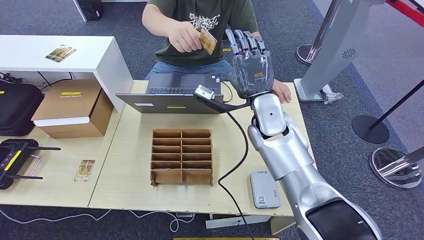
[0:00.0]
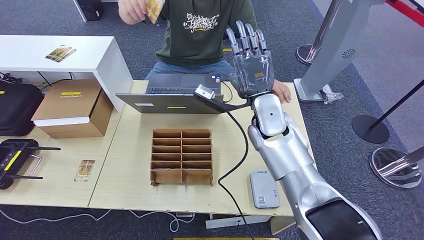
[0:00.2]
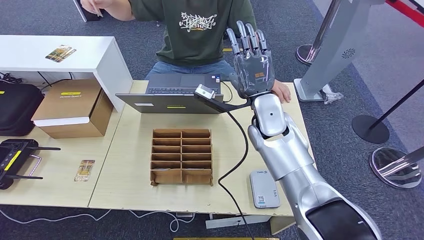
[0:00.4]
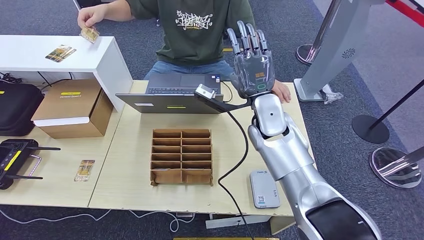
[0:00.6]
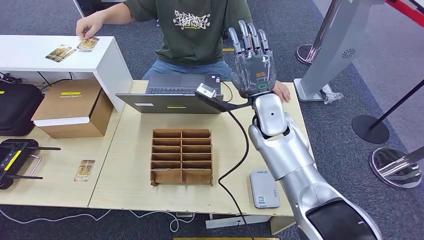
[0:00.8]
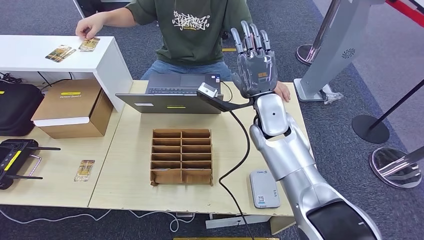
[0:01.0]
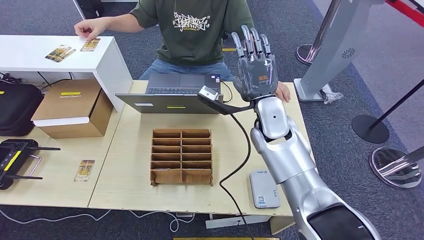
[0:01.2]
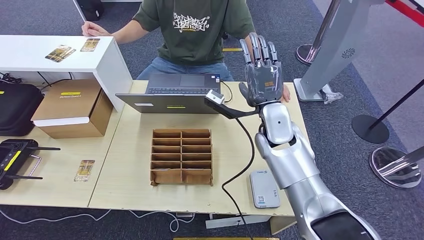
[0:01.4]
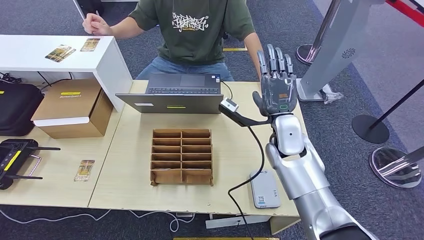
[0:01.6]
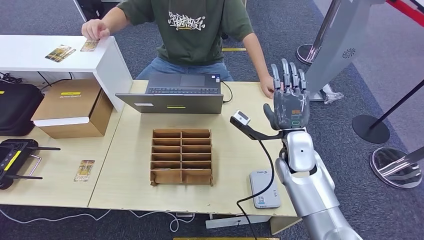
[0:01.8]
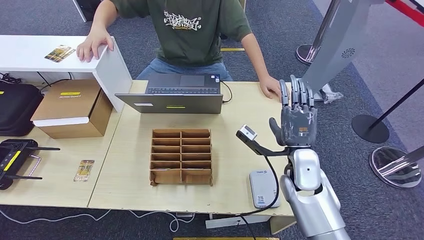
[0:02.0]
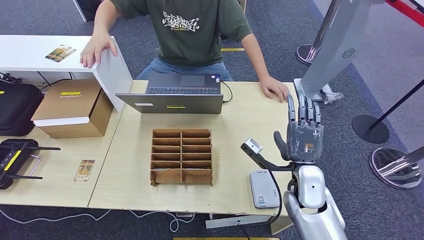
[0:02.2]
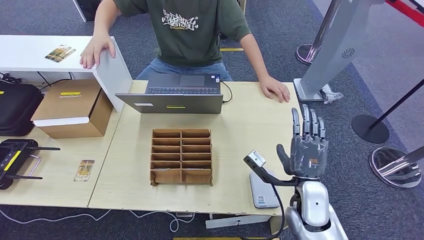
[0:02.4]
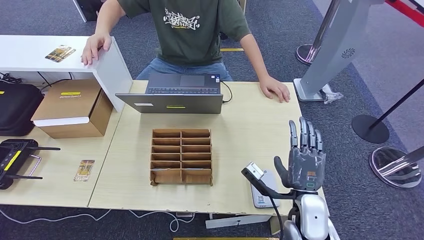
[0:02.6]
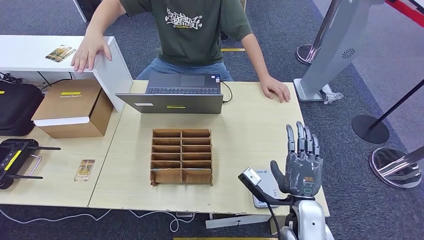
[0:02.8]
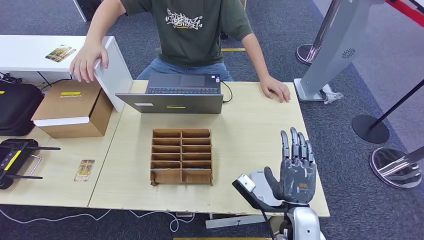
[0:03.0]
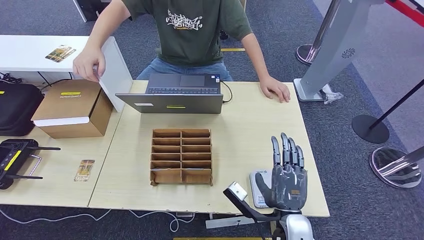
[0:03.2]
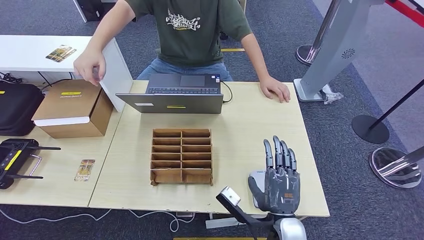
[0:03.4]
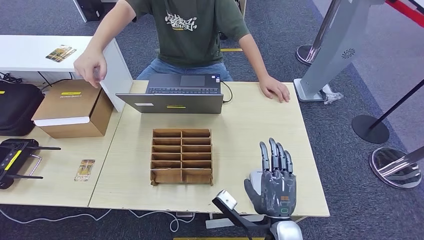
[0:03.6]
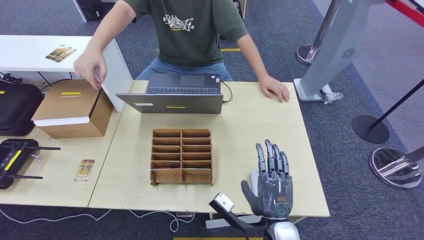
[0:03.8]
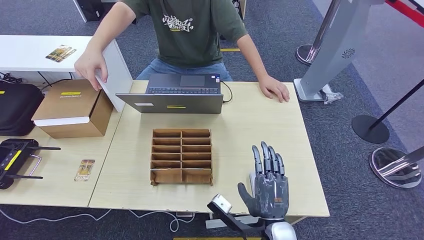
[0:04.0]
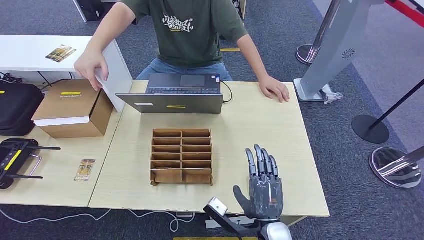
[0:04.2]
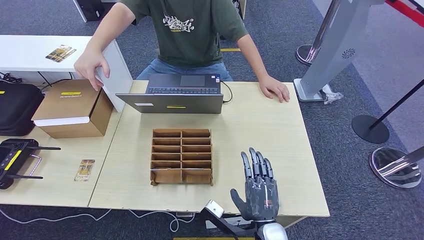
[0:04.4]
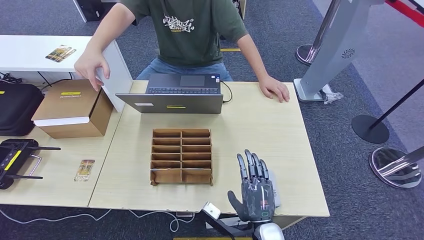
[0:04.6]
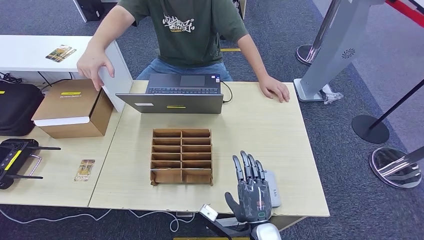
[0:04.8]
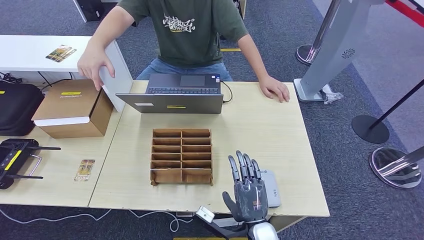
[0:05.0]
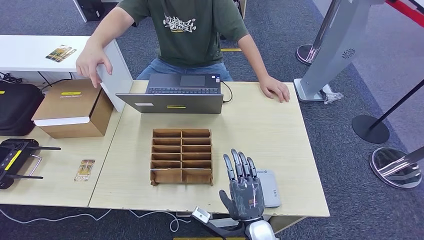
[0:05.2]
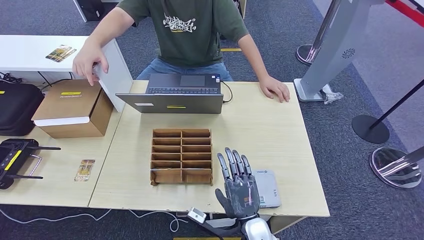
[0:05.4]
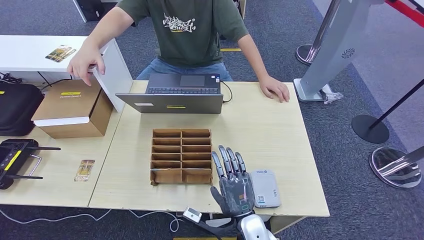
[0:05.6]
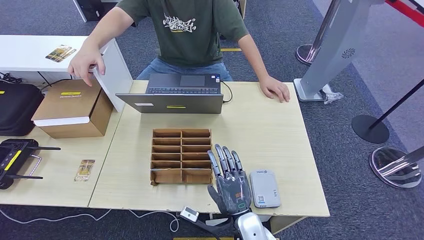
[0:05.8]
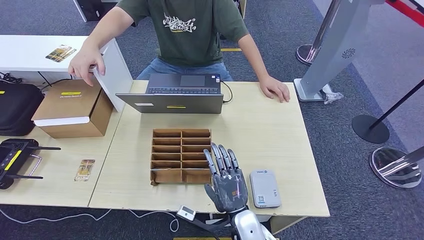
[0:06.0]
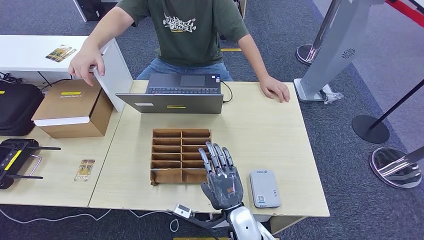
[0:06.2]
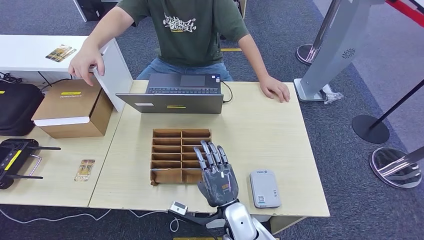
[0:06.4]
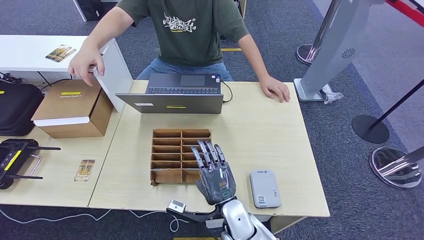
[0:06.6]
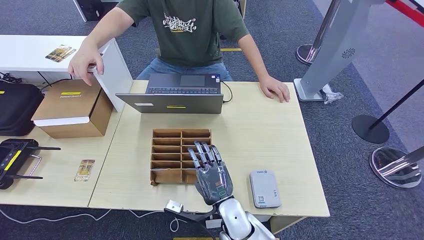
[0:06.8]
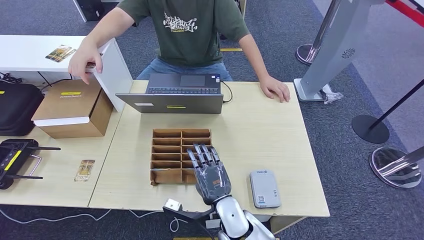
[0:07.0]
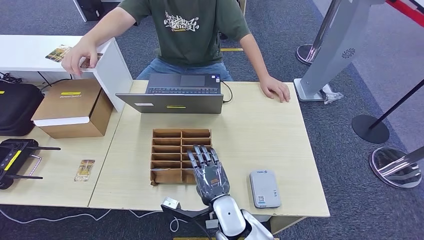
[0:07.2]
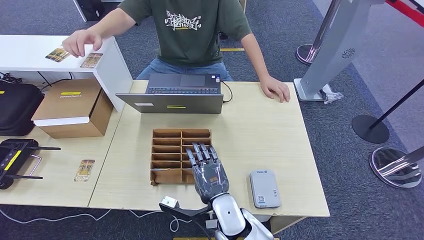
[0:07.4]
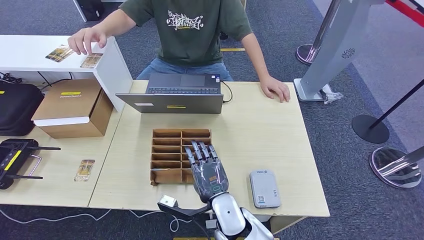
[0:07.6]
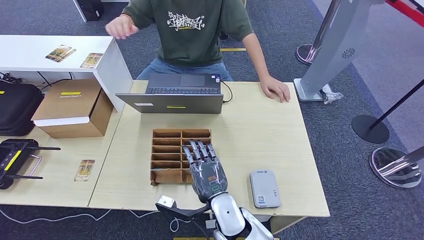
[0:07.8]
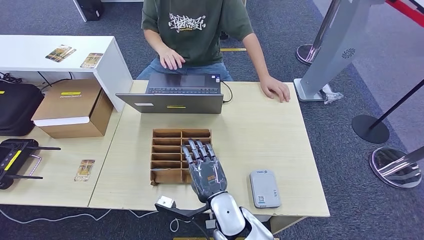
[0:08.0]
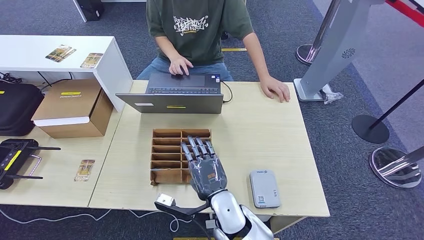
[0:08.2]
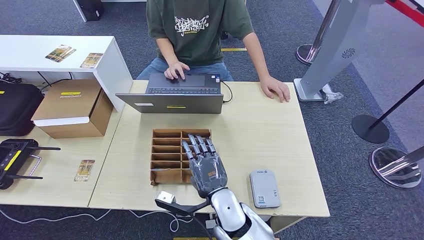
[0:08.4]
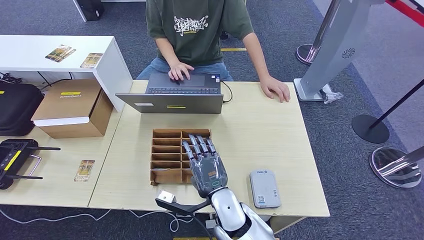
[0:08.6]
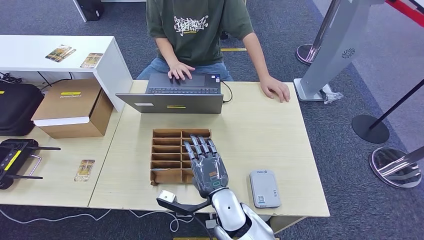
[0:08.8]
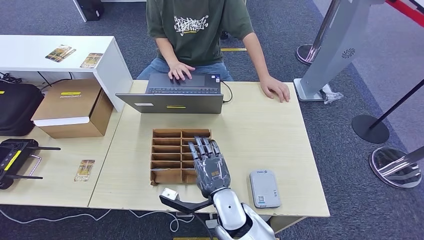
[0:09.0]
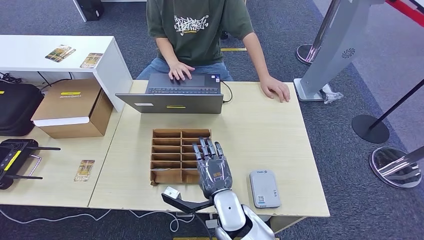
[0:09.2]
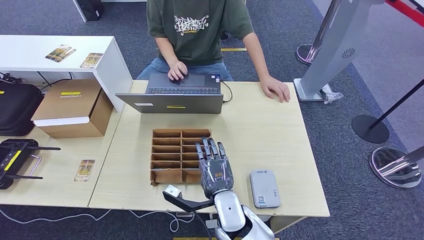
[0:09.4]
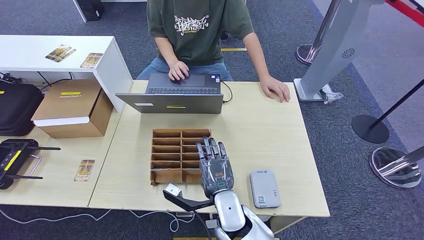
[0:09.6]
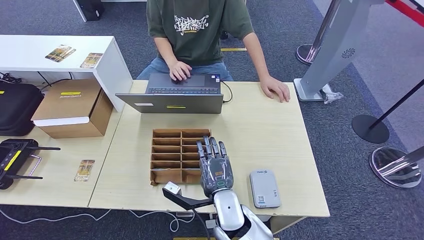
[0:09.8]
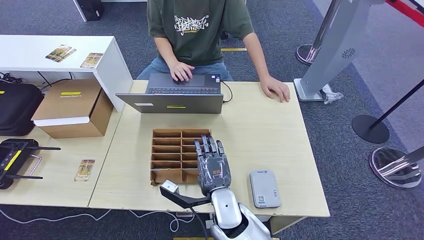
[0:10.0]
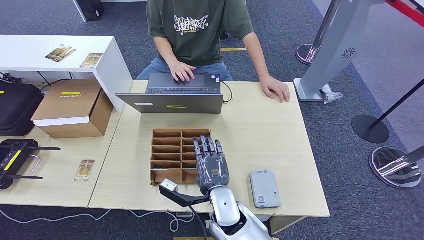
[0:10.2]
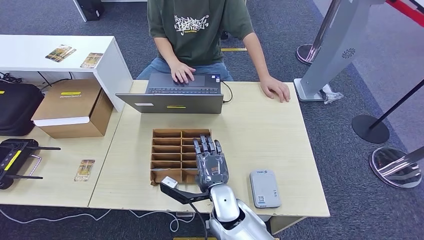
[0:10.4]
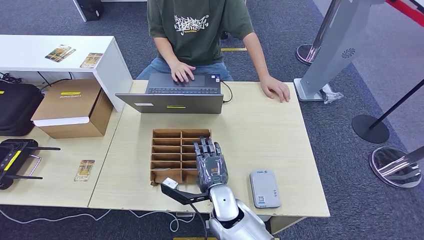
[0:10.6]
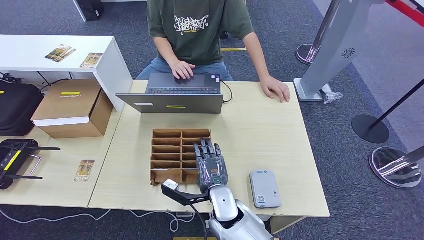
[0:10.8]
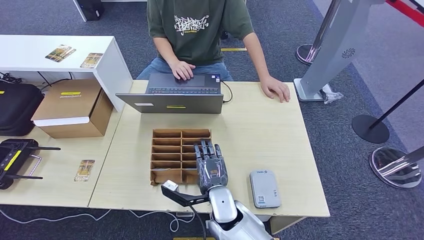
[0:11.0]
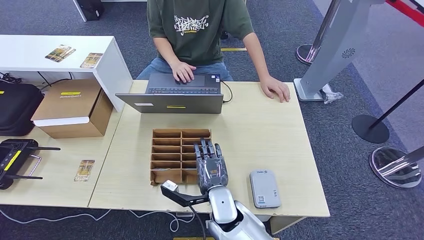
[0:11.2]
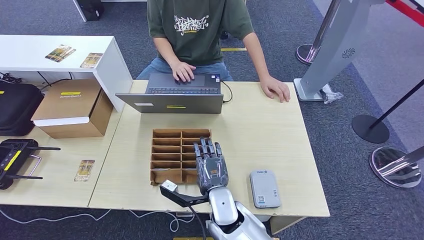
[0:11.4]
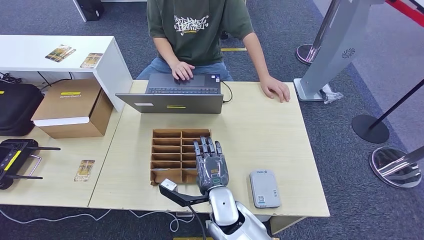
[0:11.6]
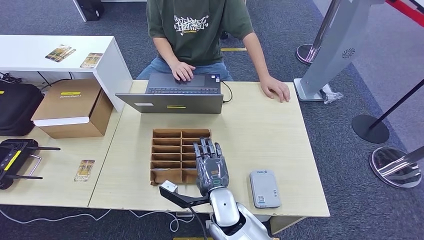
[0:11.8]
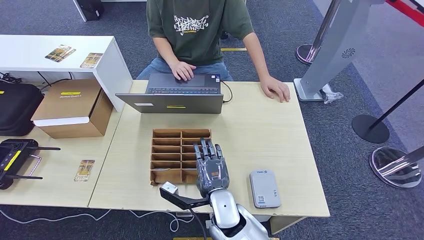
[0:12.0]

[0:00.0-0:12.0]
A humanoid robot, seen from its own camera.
0:00.0 to 0:01.6: The right hand changes place by approximately 5 cm.
0:01.6 to 0:03.0: The right hand moves backward and downward, about 20 cm.
0:03.0 to 0:04.4: The right hand heads to the left, covering about 5 cm.
0:04.4 to 0:06.0: The right hand moves about 5 cm.
0:06.0 to 0:07.6: The right hand shifts by approximately 5 cm.
0:07.6 to 0:12.0: There are only small adjustments of the hands.

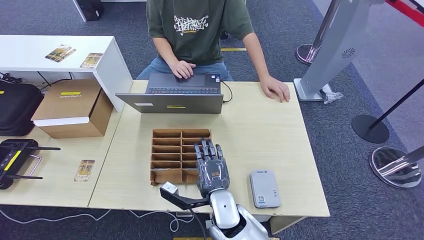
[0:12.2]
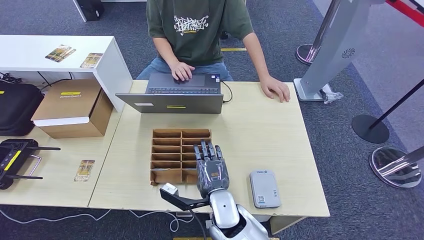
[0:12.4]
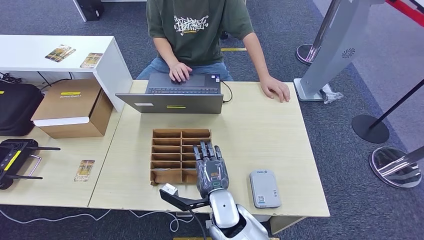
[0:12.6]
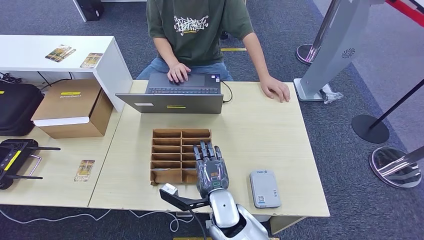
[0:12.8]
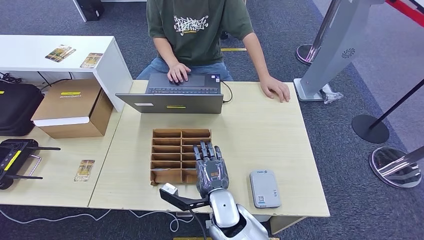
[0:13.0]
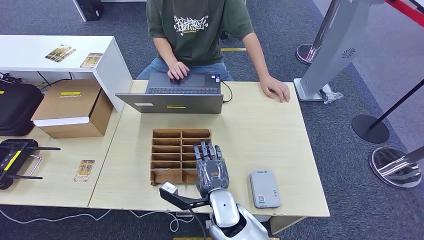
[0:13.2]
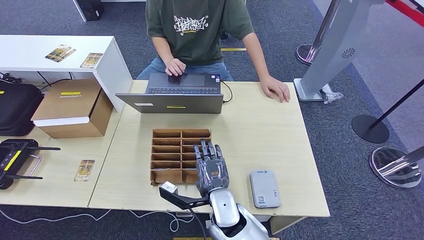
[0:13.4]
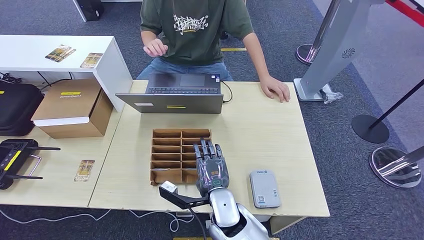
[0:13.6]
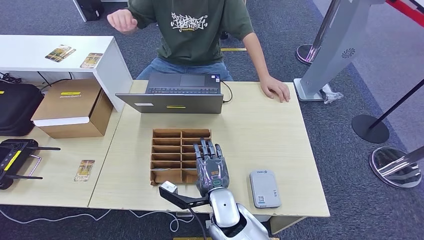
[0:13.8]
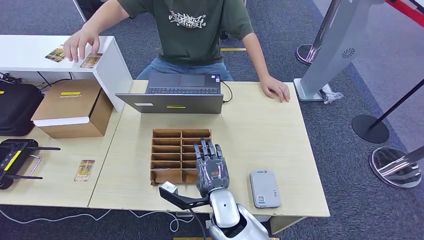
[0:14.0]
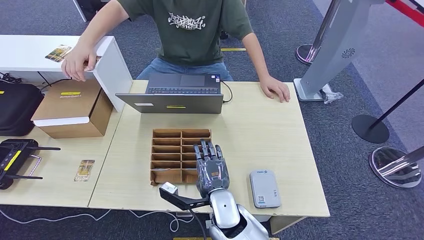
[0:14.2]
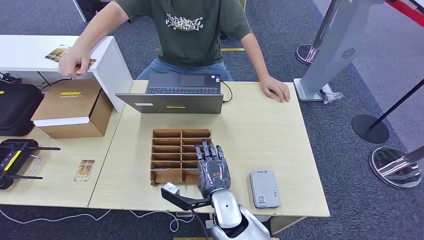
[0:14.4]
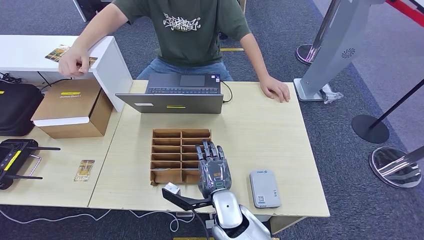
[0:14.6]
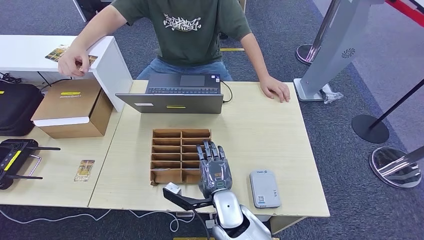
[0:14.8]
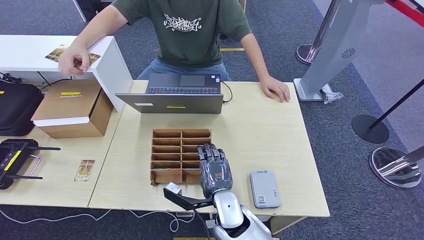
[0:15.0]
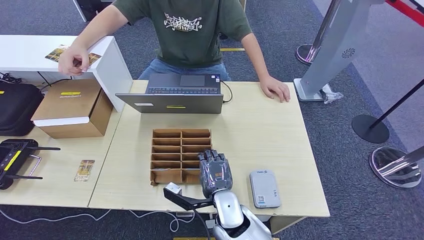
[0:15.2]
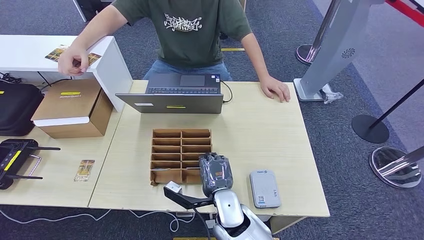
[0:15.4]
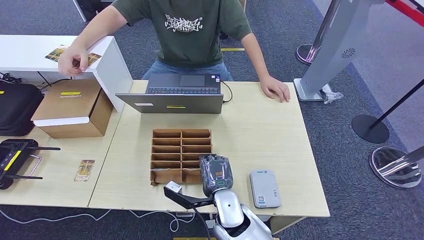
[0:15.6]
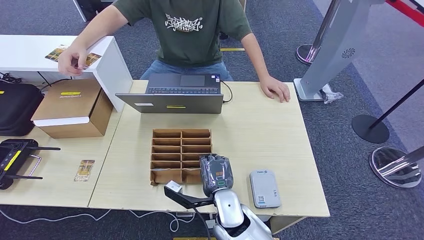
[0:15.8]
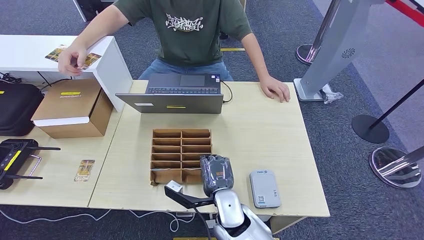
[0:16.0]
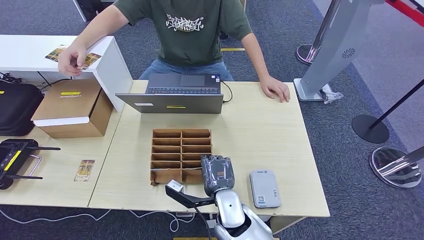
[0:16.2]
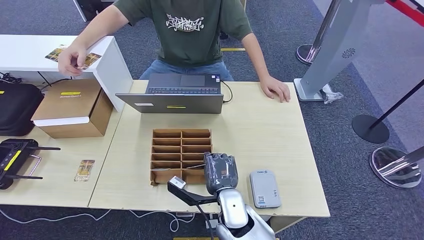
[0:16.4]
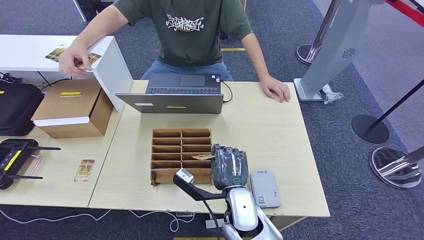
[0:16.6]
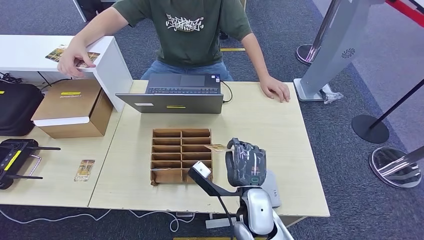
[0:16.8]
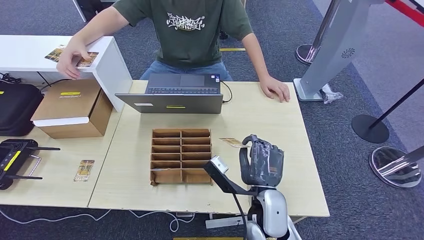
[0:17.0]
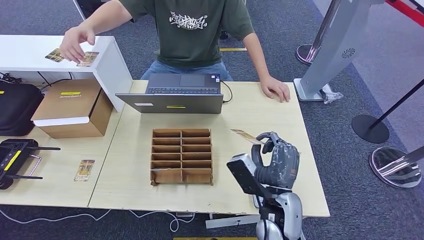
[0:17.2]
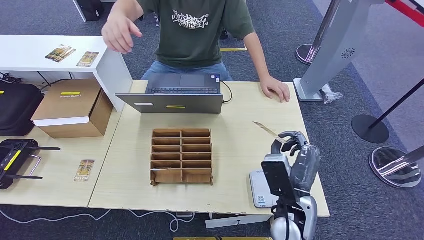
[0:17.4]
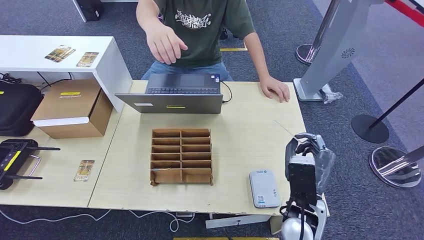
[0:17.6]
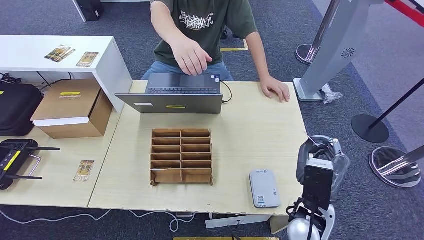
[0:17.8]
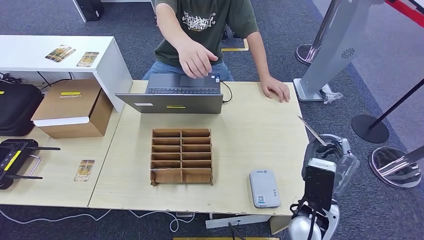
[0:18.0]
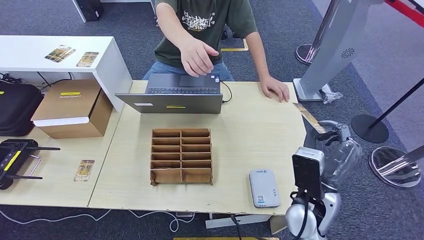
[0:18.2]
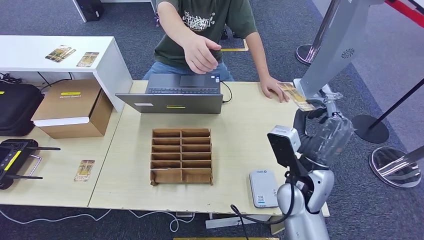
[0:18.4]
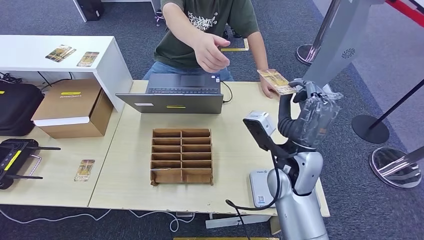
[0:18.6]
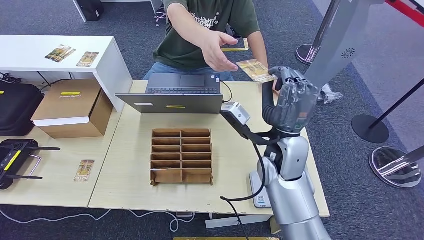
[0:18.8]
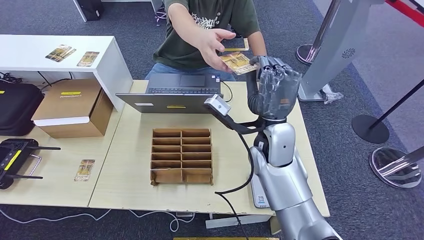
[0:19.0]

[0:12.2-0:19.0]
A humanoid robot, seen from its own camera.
Step, 0:12.2 to 0:17.0: Pick up the room key from the key card box.
0:12.2 to 0:16.2: Both hands stay about where they are.
0:16.2 to 0:17.6: The right hand moves to the right and upward, roughly 15 cm.
0:17.6 to 0:19.0: The right hand heads forward, upward and to the left, covering some 20 cm.
